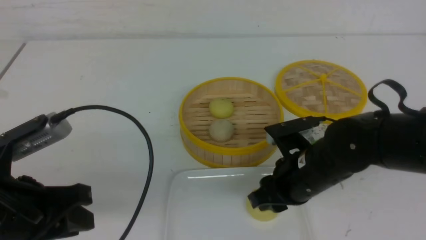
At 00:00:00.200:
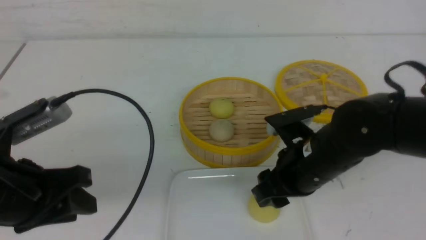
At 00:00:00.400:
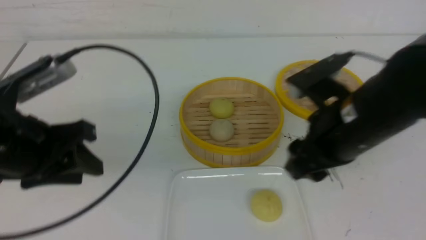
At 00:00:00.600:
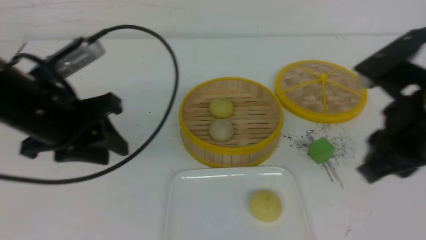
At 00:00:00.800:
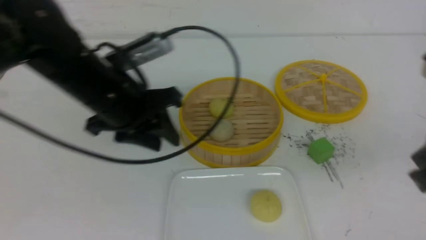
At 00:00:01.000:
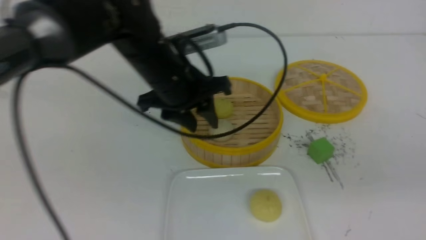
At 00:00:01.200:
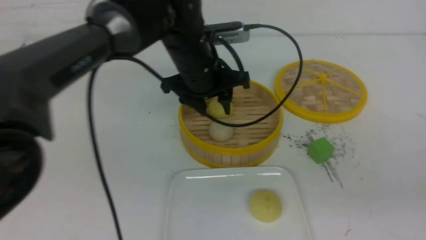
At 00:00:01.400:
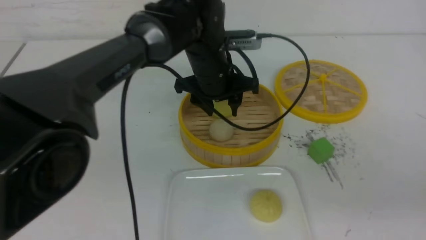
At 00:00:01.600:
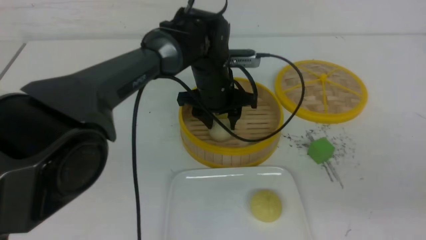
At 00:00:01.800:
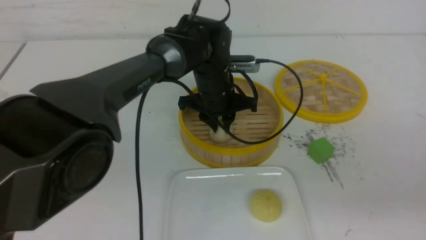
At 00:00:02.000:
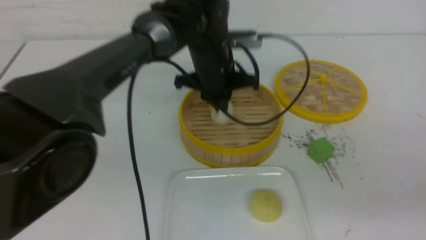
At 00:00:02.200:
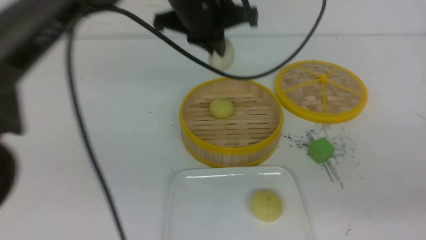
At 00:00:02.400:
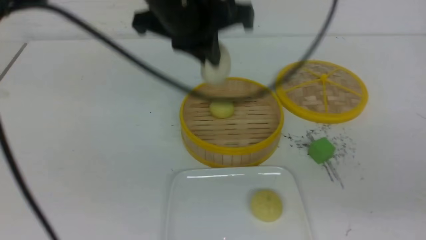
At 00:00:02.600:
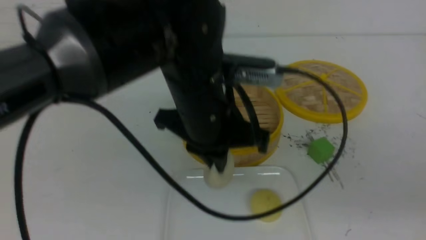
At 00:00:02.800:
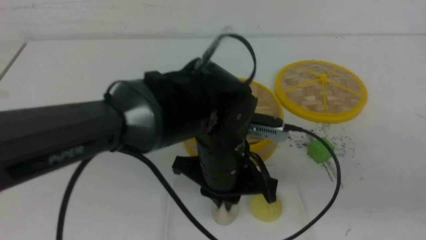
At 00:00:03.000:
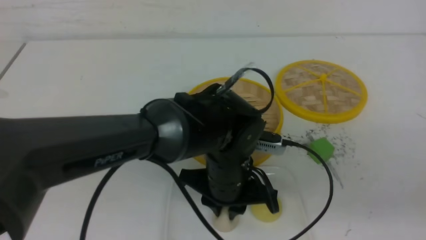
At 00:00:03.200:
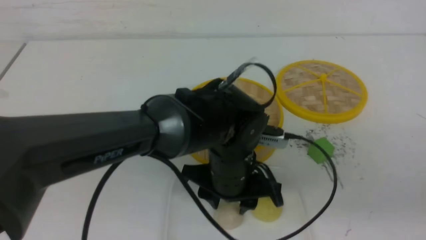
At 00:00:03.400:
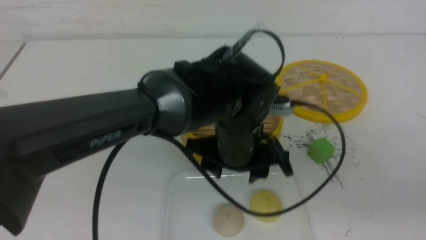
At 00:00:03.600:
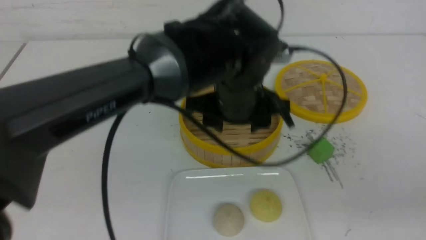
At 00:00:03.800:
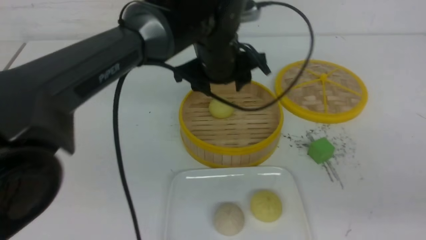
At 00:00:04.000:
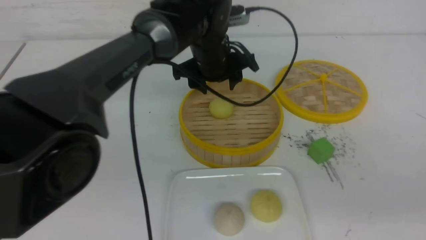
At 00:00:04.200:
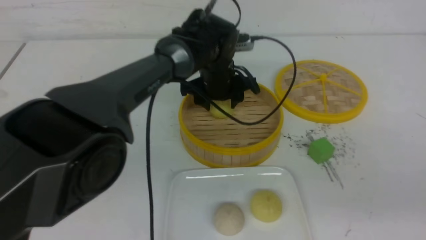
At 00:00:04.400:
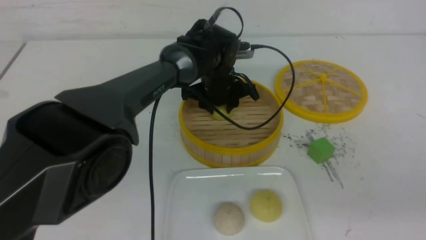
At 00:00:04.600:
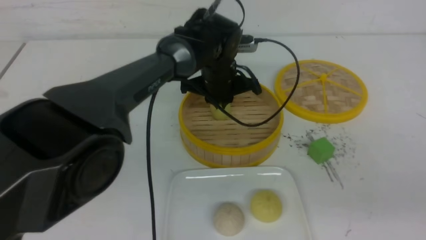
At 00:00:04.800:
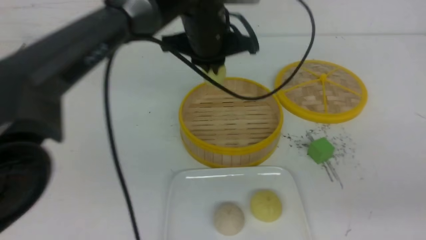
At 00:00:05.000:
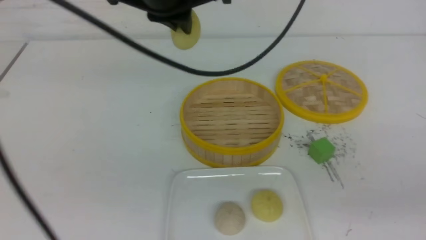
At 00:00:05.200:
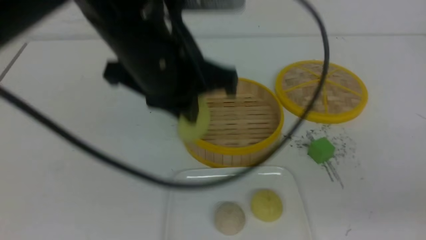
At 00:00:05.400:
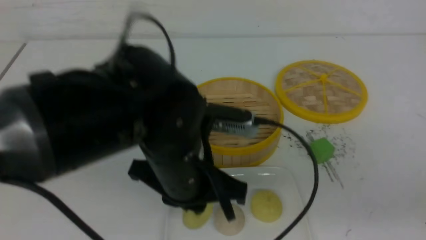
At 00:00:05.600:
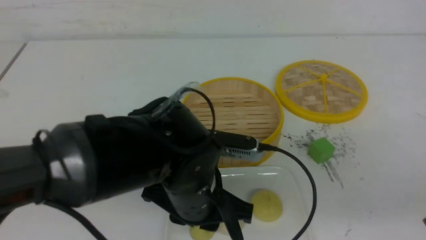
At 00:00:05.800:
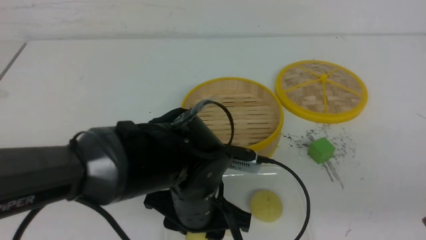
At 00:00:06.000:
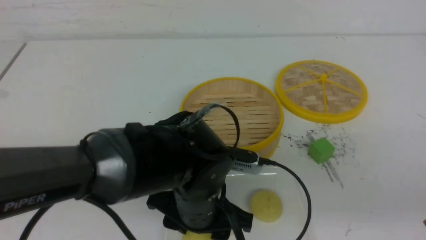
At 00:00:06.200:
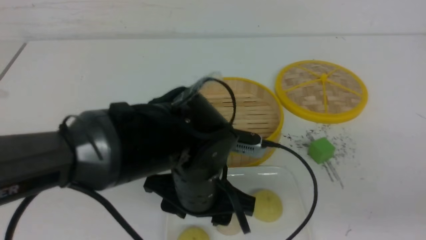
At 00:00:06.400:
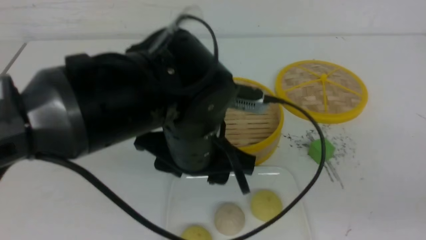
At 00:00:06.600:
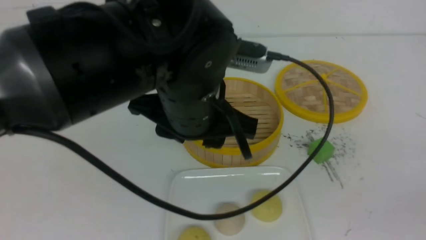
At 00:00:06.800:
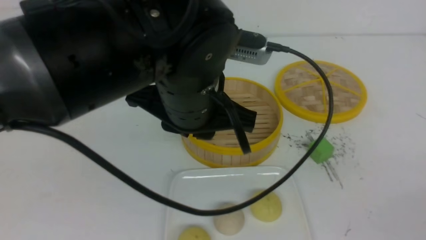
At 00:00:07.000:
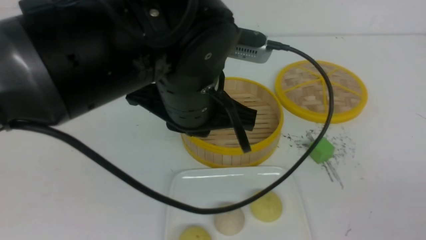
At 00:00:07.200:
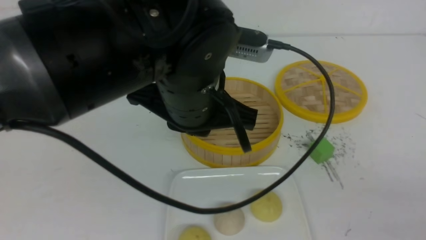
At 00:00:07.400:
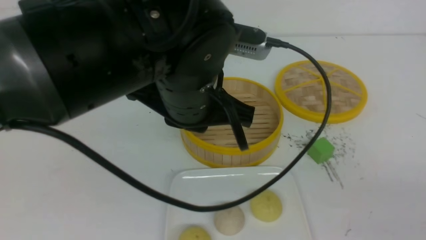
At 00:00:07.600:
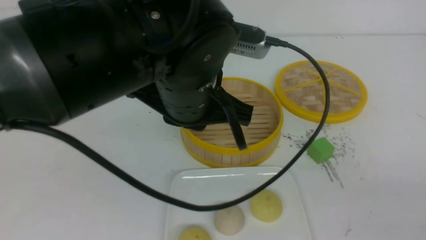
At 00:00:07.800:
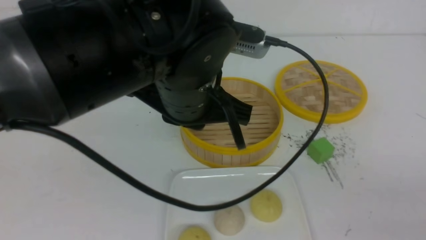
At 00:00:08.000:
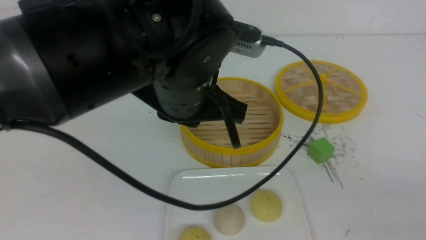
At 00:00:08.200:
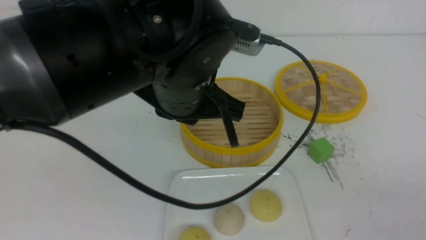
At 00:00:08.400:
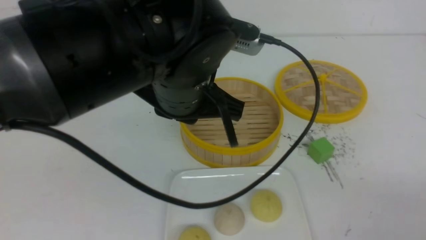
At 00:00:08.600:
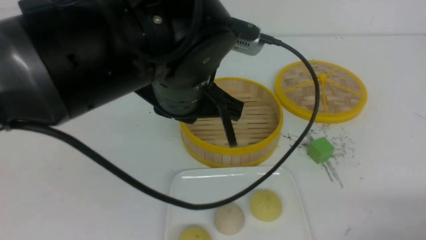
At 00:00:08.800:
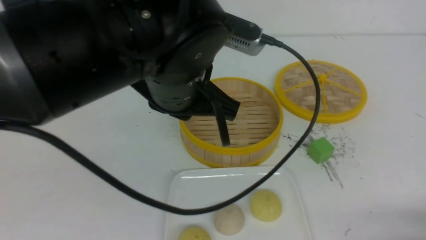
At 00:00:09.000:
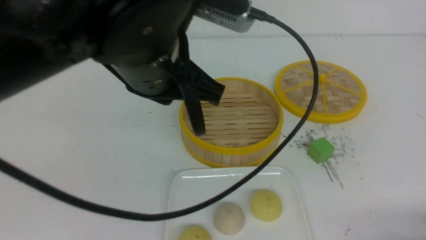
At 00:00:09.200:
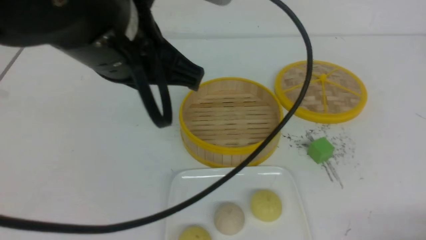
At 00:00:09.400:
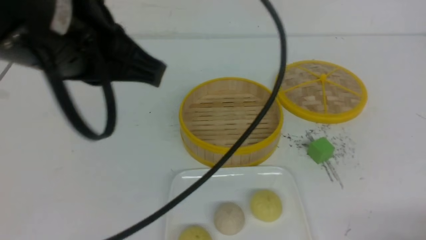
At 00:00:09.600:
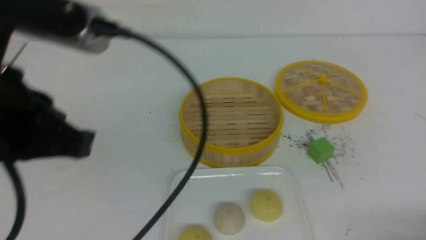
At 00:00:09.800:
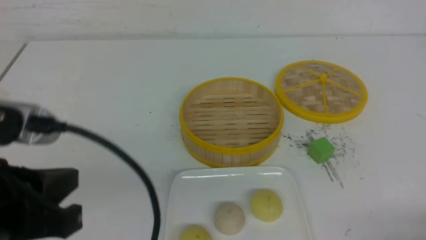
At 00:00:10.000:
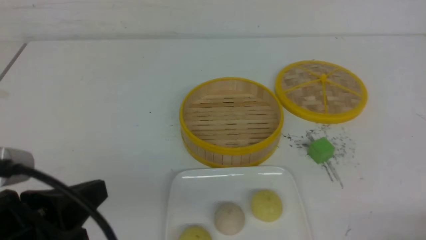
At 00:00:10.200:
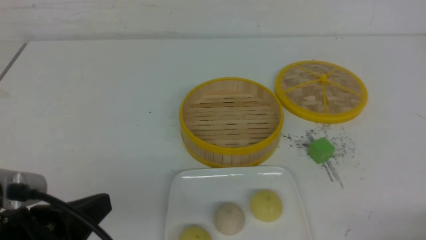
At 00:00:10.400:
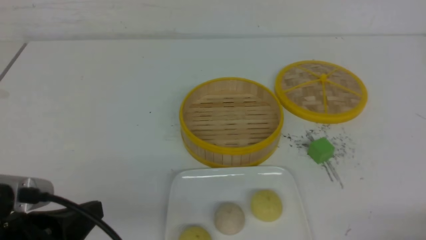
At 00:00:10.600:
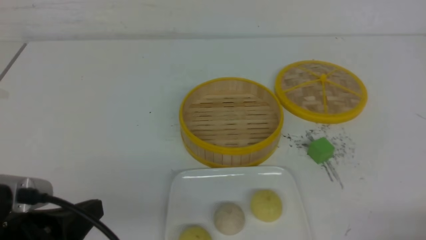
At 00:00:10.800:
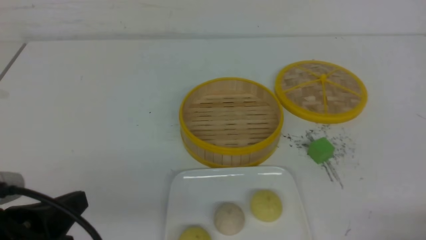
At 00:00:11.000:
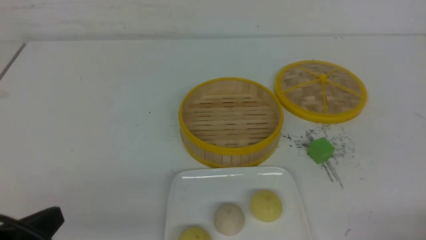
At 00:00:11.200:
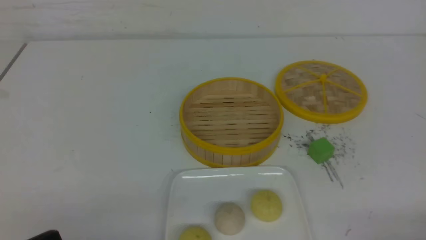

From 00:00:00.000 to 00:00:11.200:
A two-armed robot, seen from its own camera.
Step, from 00:00:00.400 to 00:00:01.800: use the left arm to grab the steamed stuffed bun that is closest to it.
Step, from 00:00:02.000 to 00:00:03.200: use the left arm to put the steamed stuffed bun into the plate.
Step, from 00:00:03.400 to 00:00:04.400: use the left arm to grab the steamed stuffed bun that is closest to it.
Step, from 00:00:04.800 to 00:00:05.800: use the left arm to put the steamed stuffed bun into the plate.
From 00:00:00.000 to 00:00:01.600: The right gripper goes roughly 25 cm to the right, backward and upward, and closes, while the left gripper travels forward and to the right by roughly 35 cm.
From 00:00:01.600 to 00:00:03.200: The left gripper travels backward by approximately 15 cm, and closes and opens again.
From 00:00:03.200 to 00:00:04.800: The left gripper travels upward and forward by roughly 20 cm, and closes up.
From 00:00:04.800 to 00:00:06.400: The left gripper goes up and down, some 20 cm each way, reversing 2 times, and opens up.
From 00:00:06.400 to 00:00:08.000: The left gripper goes roughly 5 cm upward, and closes. The right gripper moves some 5 cm.
From 00:00:08.000 to 00:00:09.600: The left gripper is displaced to the left and backward by approximately 15 cm; the right gripper shifts roughly 10 cm downward.
From 00:00:09.600 to 00:00:11.200: The left gripper goes some 20 cm downward, backward and to the left.

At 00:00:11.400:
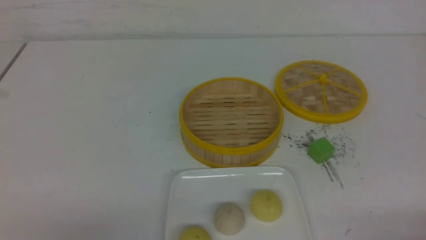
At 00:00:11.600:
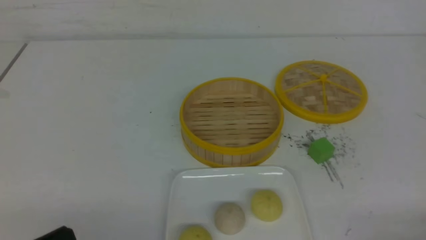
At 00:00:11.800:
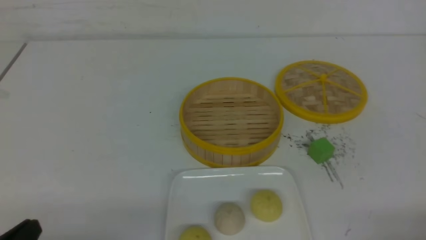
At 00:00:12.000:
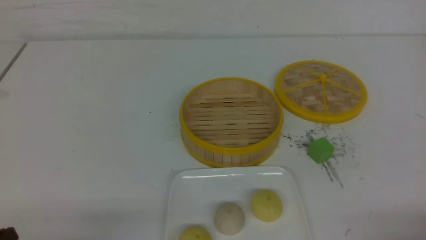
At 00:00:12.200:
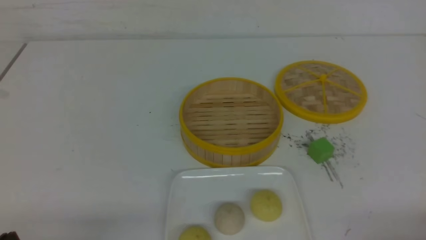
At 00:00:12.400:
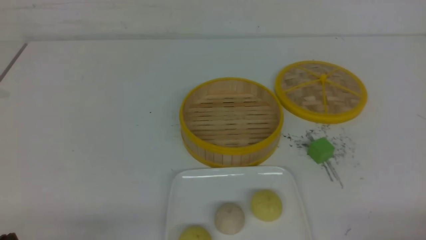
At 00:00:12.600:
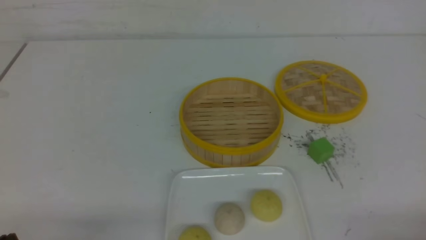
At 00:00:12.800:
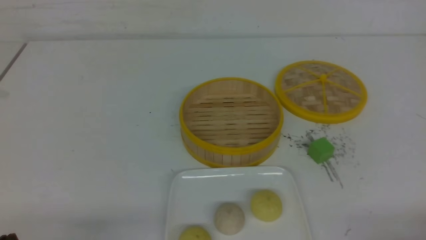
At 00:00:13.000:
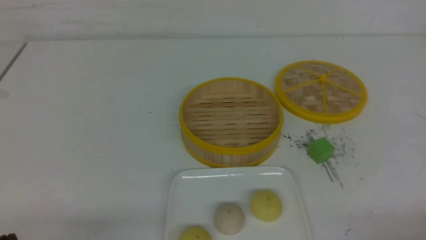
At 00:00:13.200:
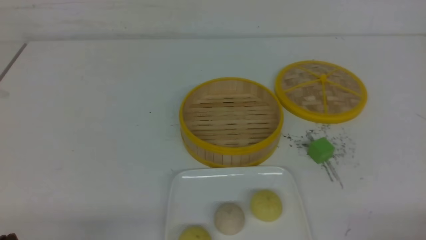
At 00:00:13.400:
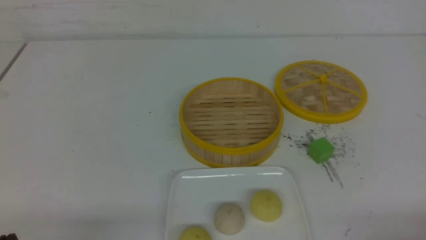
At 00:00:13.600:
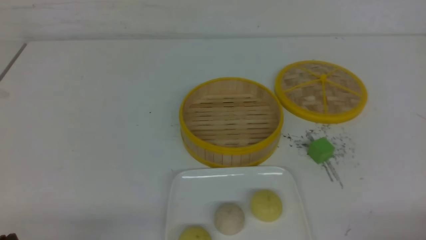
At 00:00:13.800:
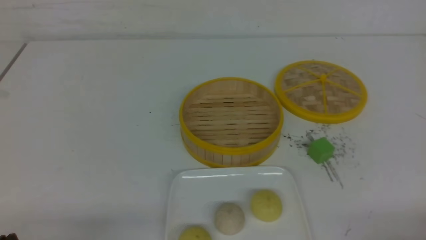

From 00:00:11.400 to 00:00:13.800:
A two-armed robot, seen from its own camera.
From 00:00:12.600 to 00:00:13.800: The two grippers keep their place.
